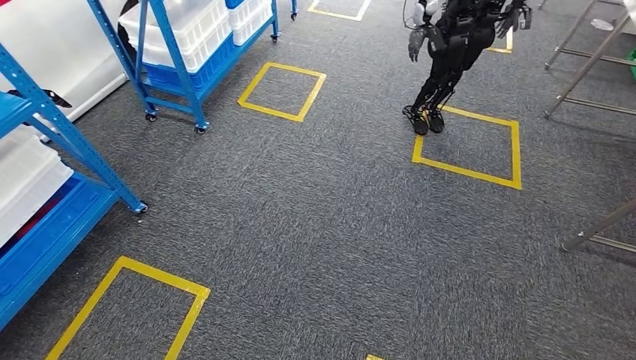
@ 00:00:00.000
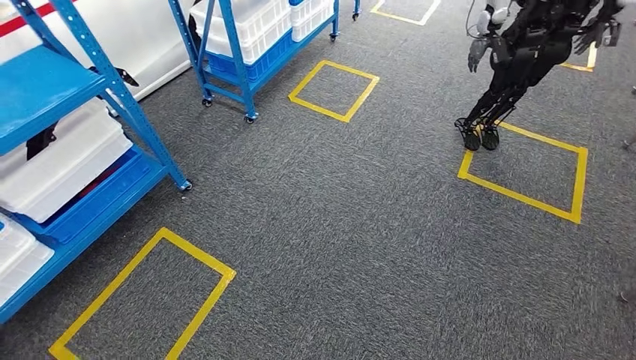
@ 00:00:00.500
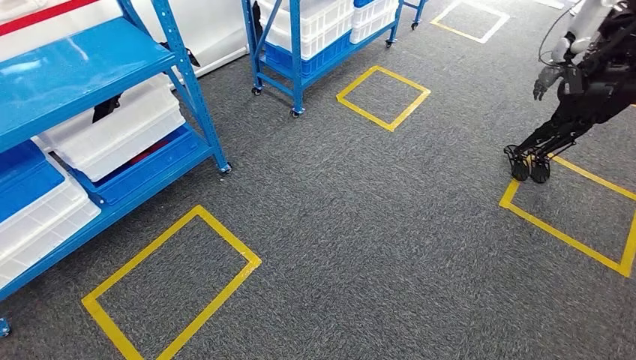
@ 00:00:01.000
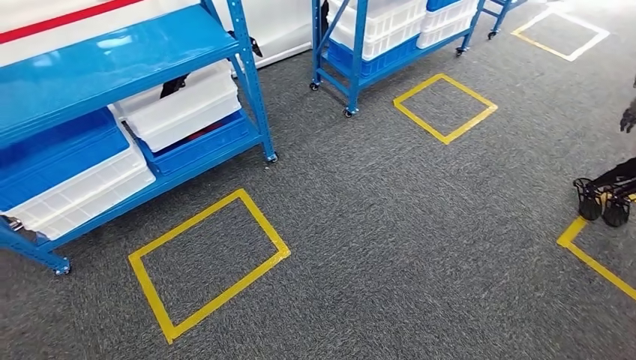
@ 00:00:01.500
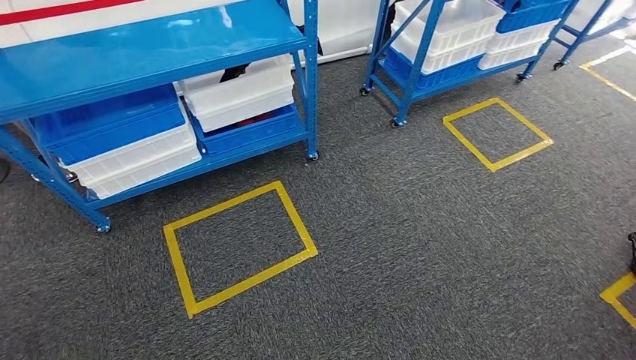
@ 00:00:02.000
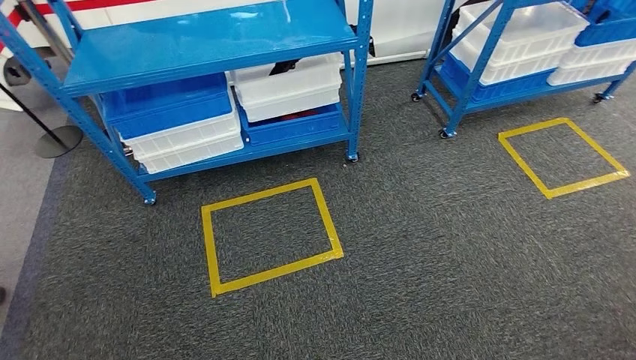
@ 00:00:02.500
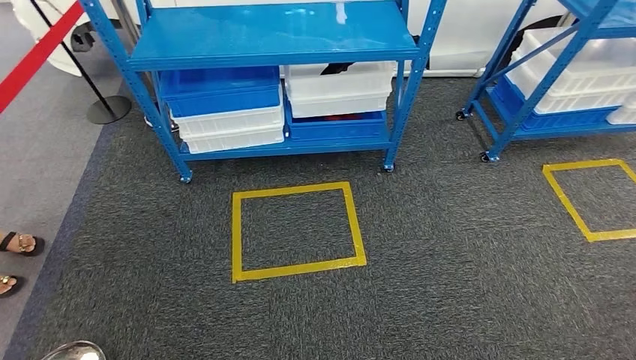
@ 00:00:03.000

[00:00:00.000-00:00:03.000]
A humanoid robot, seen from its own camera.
Step, 00:00:00.000 to 00:00:03.000: Move to the initial position of the shelf.
